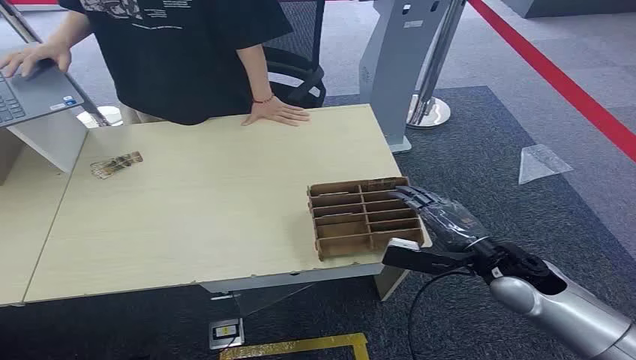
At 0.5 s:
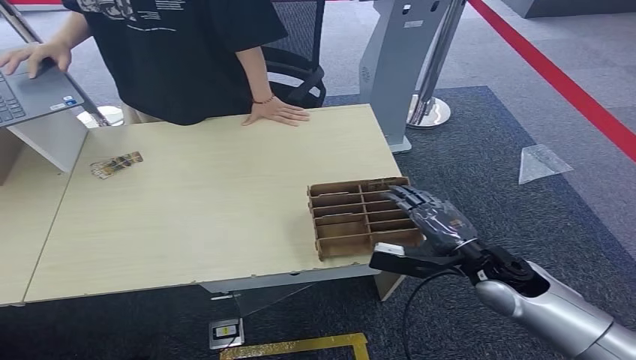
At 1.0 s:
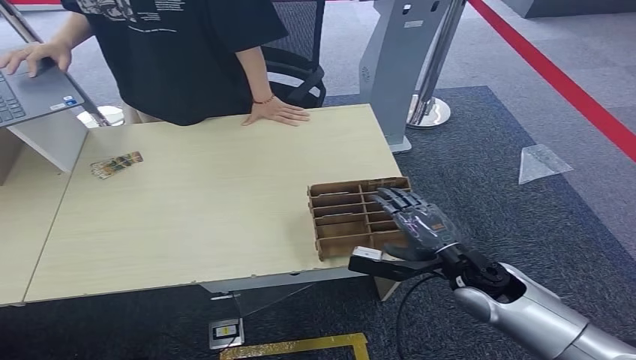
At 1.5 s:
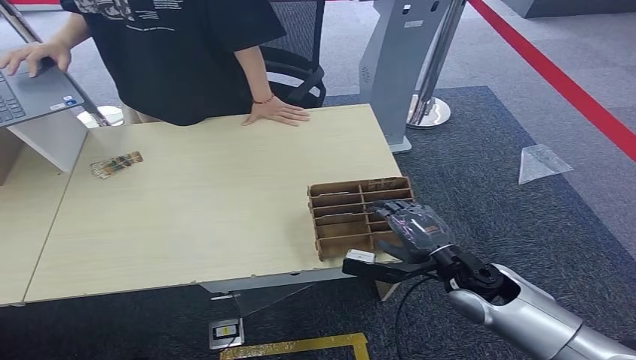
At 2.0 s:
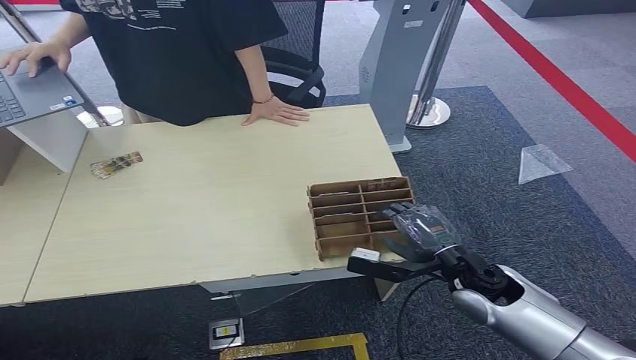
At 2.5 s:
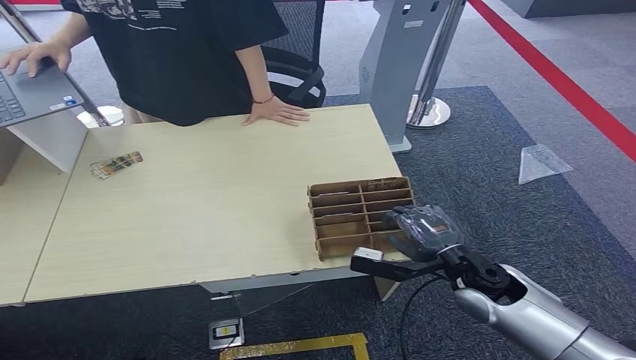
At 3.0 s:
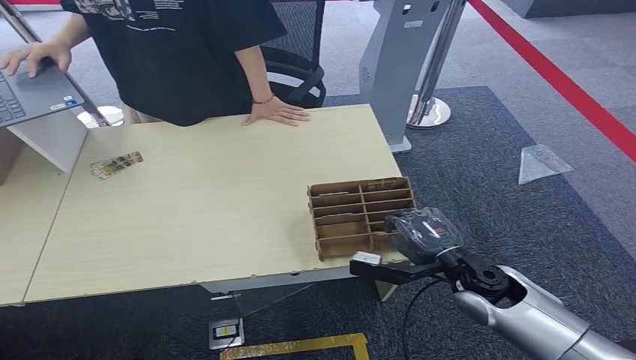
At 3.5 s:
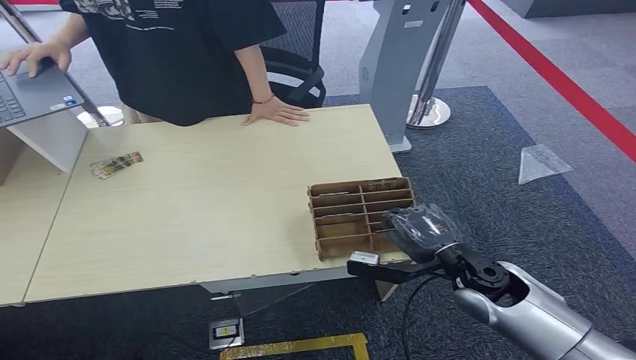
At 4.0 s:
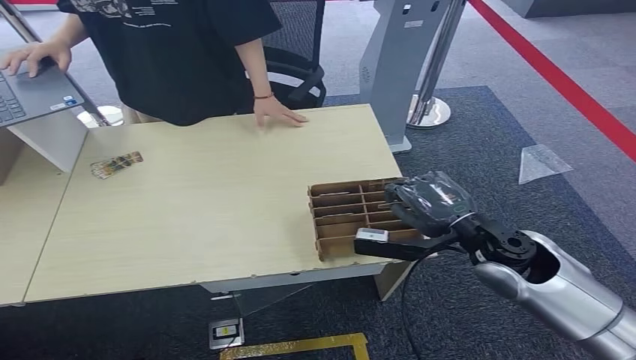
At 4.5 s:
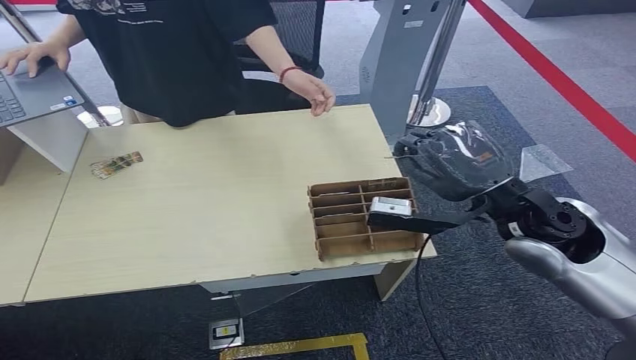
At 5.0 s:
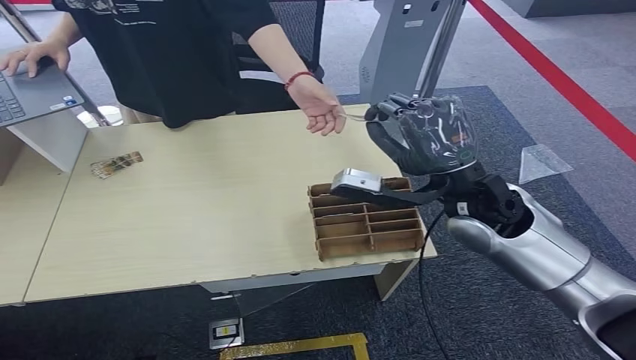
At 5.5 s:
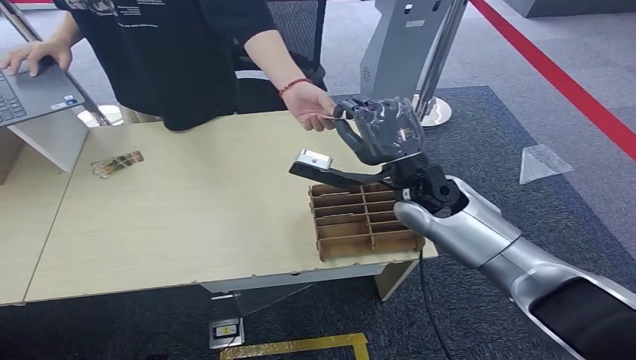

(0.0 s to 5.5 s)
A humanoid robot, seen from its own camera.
Step, 0.0 s - 4.0 s: Pick up the room card from the card holder.
Step, 4.5 s - 5.5 s: Hand the room card to the target.
2.0 s - 3.5 s: The hands move only a little.
3.5 s - 5.5 s: The right hand moves upward, forward and to the left, some 20 cm.
